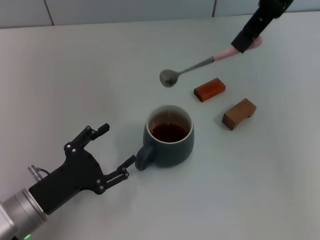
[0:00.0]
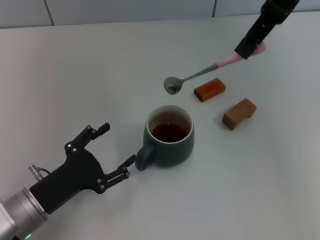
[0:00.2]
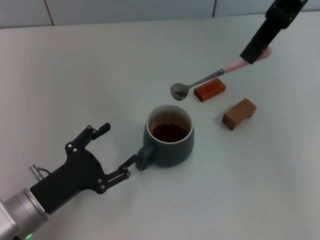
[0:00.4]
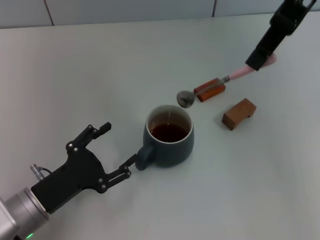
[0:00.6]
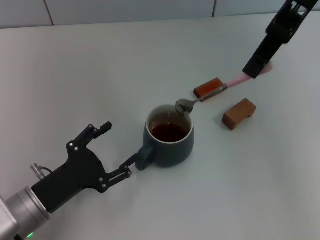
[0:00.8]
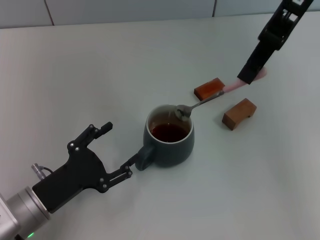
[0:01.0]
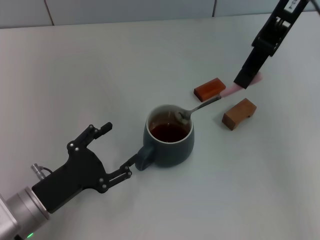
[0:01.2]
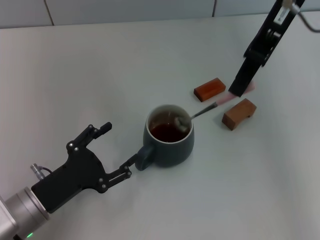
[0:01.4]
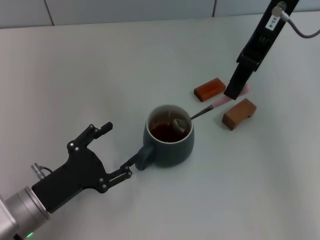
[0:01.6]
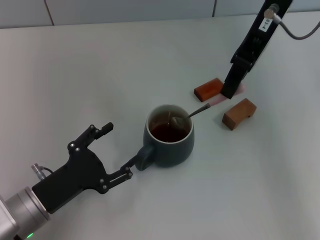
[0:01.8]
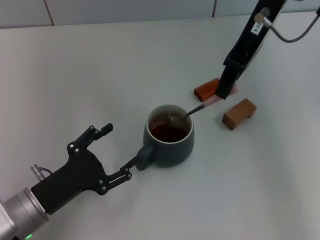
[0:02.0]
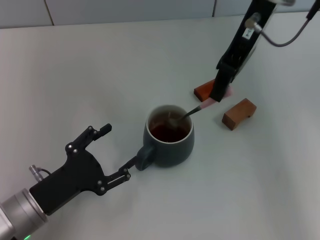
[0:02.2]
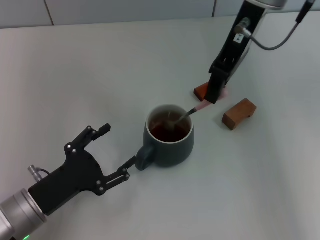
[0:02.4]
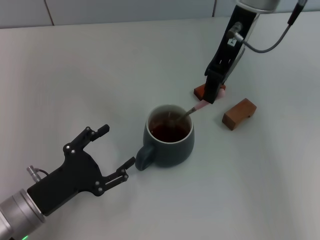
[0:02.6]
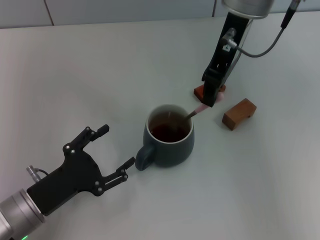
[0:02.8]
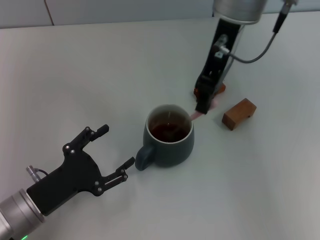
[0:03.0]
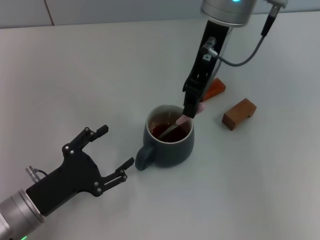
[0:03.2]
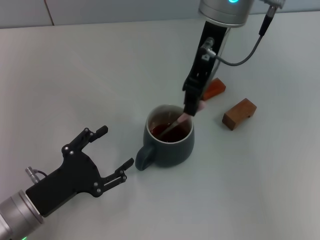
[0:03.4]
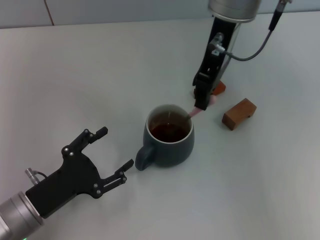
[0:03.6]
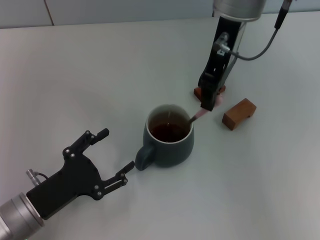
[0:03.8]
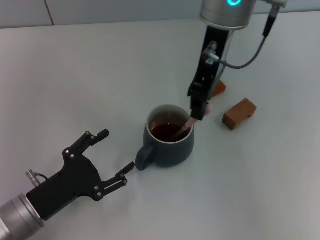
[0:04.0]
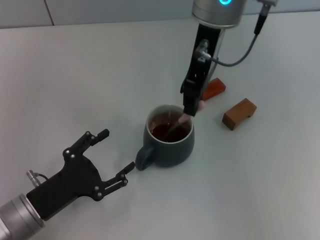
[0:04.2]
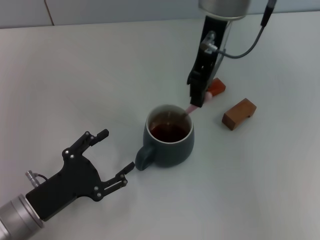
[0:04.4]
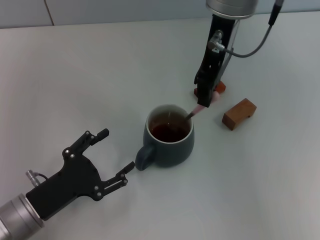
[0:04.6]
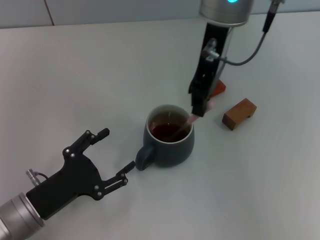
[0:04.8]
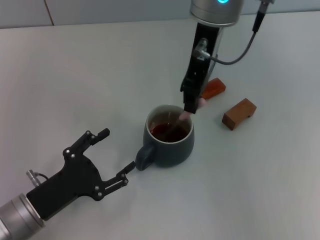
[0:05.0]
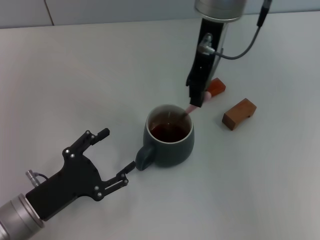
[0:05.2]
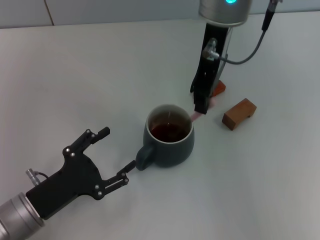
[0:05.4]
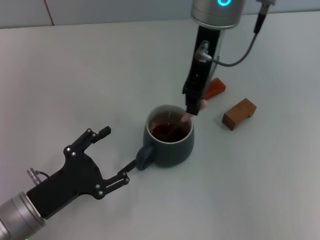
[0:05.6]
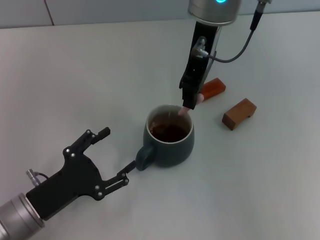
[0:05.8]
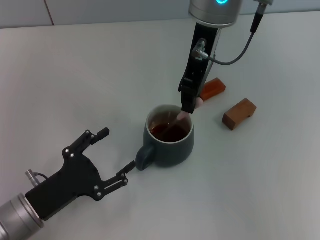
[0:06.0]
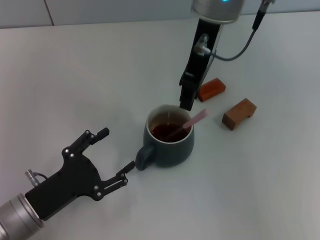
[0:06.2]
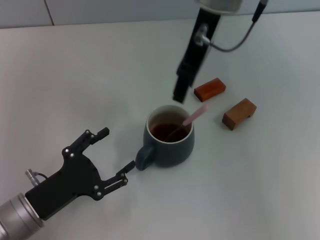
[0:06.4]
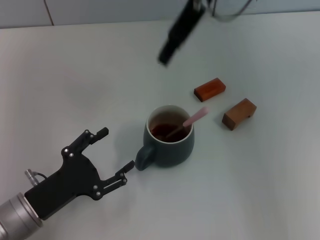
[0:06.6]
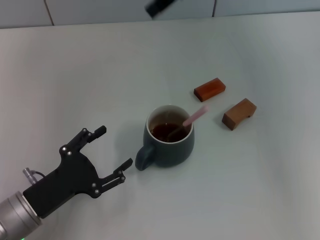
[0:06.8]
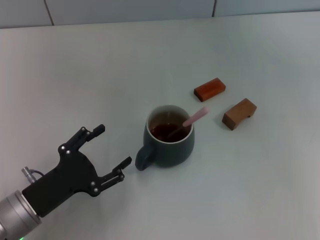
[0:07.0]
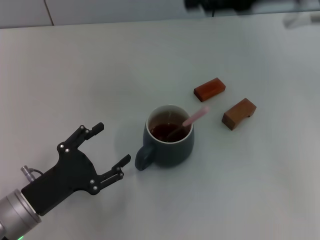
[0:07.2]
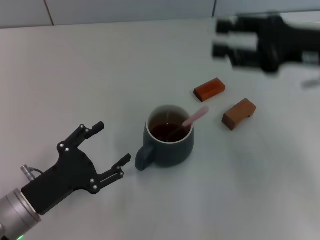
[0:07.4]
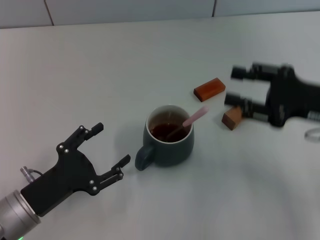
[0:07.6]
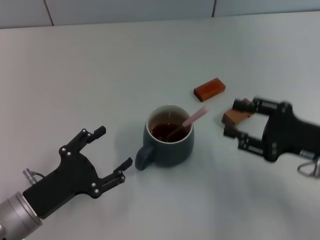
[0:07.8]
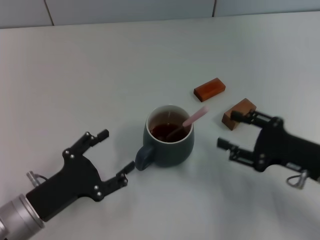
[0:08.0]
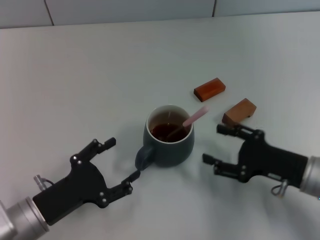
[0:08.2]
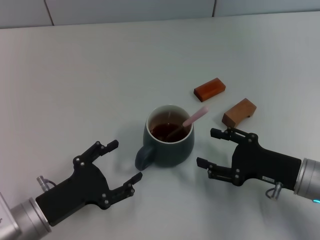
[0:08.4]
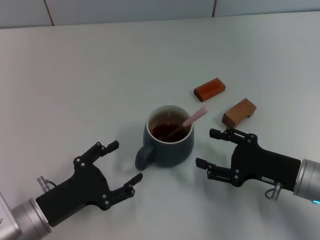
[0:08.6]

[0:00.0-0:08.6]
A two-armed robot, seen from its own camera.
Task of the whole recording: Move the grey cup to the center, lift the pink spoon, stir it three times in the cup, and put the spoon into the cup.
Step, 0:00.0 to 0:06.0: Stir the coffee in the cup with the right gripper.
0:00.0 to 0:01.4: The right gripper goes about 5 cm downward.
0:01.4 to 0:02.8: The right gripper is displaced to the left by about 5 cm.
0:02.8 to 0:05.8: The grippers move only a little.
0:05.8 to 0:07.2: The right gripper travels to the right by roughly 20 cm, and opens.
0:07.2 to 0:08.6: The right gripper is displaced downward and backward by some 25 cm.

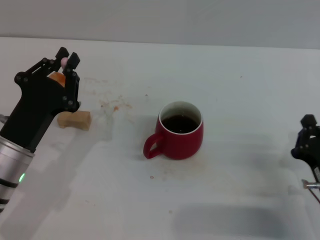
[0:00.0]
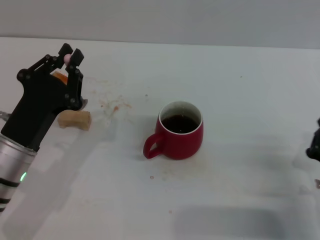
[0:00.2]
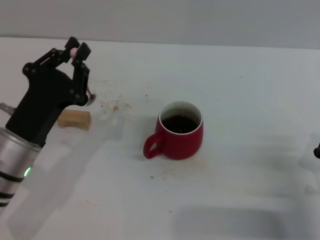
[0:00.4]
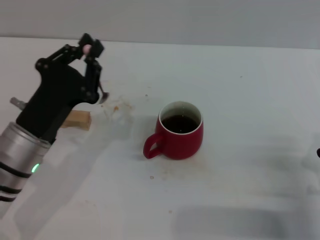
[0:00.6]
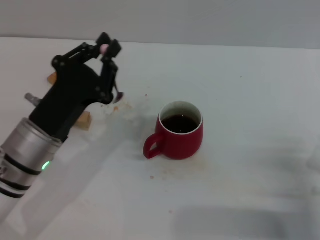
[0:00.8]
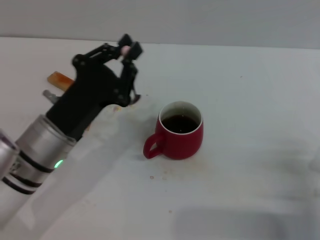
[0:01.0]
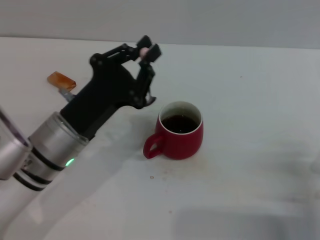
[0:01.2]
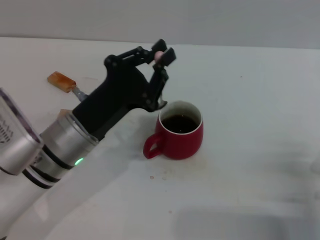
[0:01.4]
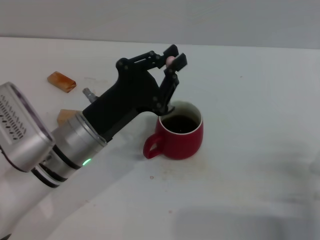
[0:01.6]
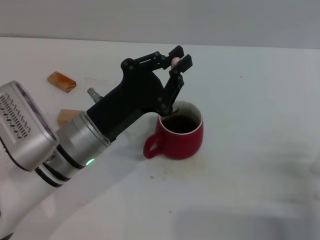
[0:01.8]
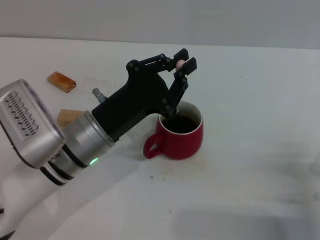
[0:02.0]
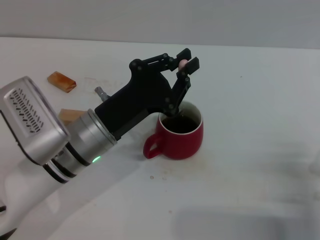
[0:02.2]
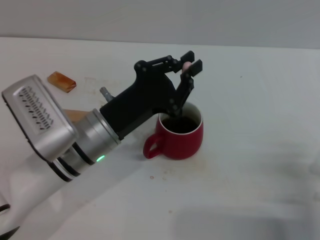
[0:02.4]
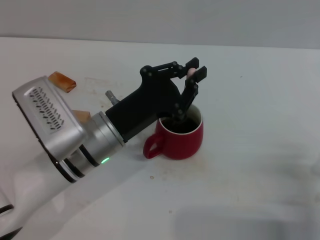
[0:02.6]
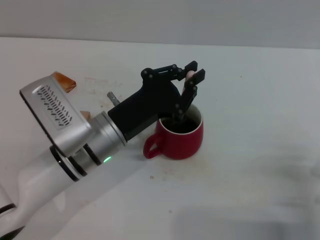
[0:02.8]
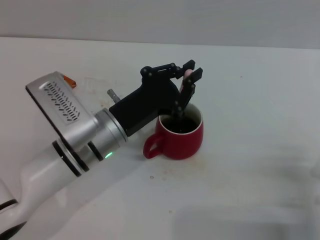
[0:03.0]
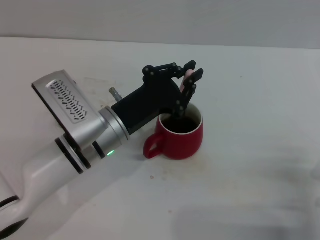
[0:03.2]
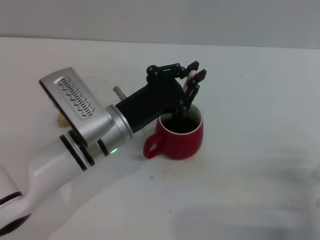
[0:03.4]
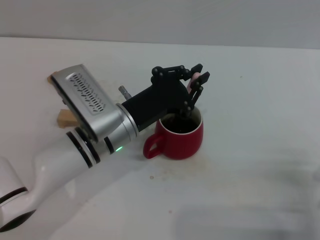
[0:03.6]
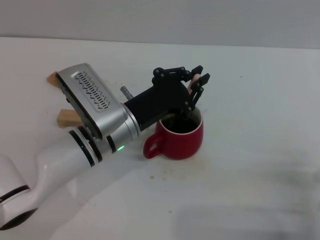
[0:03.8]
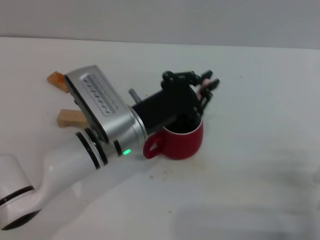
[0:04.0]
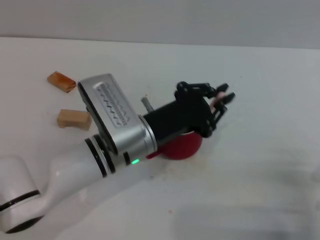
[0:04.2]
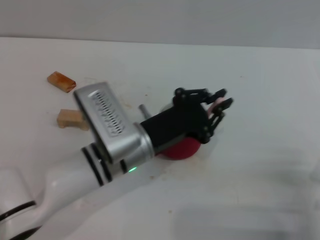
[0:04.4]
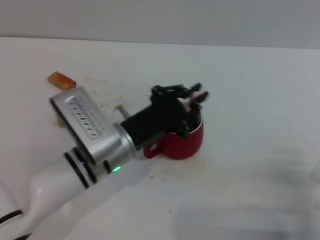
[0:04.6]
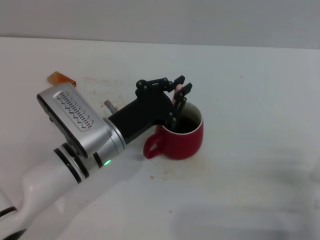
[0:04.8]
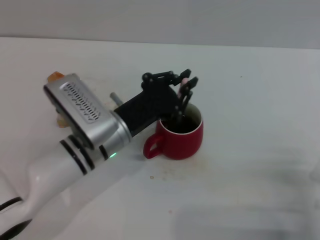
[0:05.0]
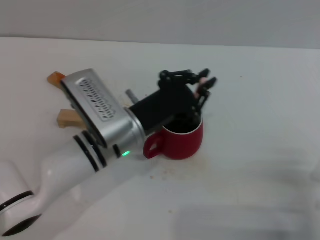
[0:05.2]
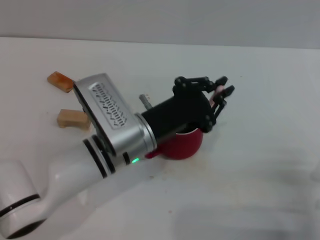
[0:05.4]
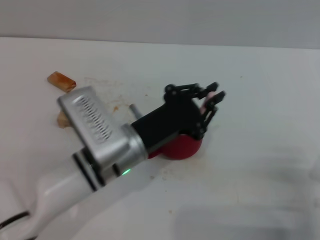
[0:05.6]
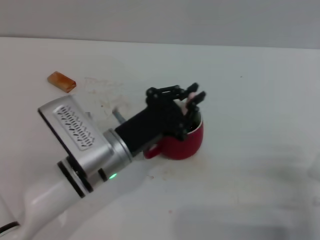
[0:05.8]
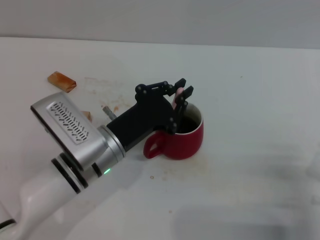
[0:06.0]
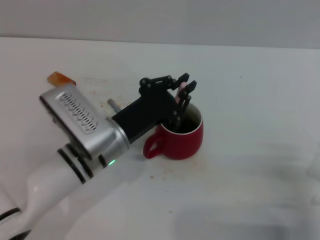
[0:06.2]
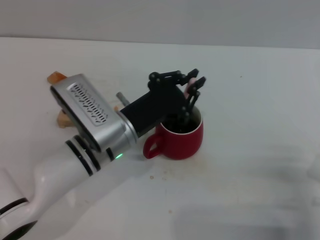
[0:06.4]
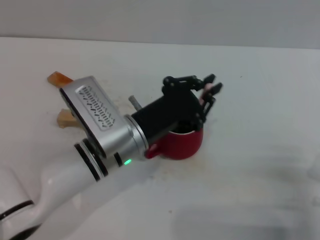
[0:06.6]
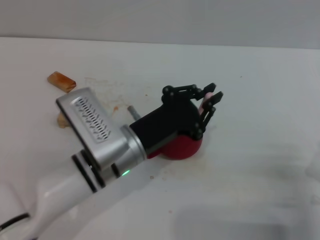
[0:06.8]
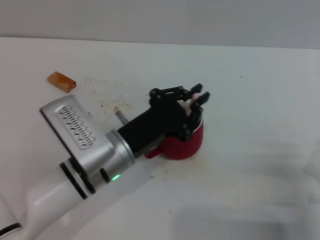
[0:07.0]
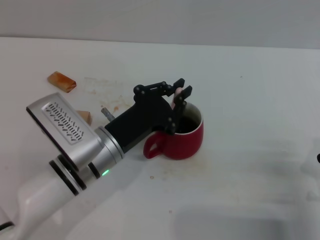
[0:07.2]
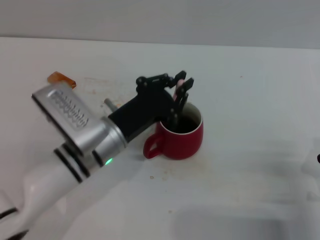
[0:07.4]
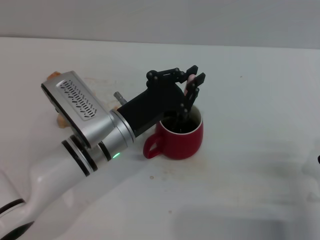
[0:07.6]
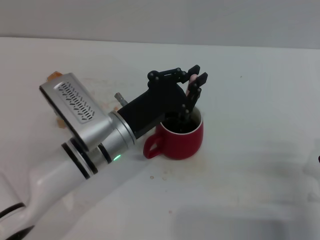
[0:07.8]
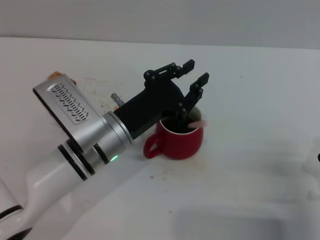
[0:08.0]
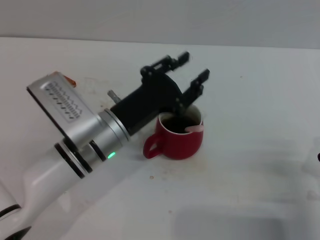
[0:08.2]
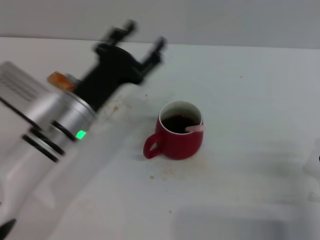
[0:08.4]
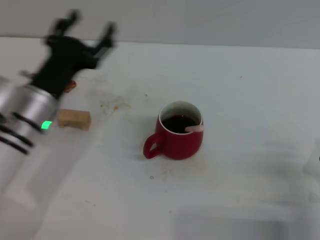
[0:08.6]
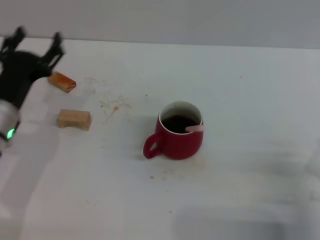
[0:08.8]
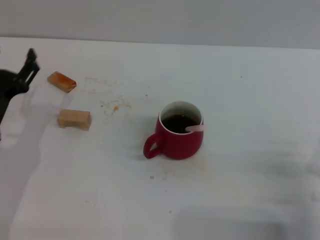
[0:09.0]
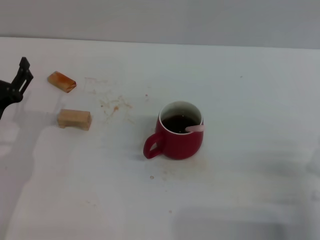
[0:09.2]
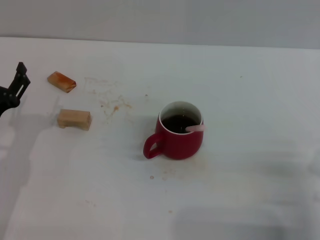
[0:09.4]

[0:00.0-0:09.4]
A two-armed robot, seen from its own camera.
Task of the whole recording: Move the red cup to the center, lift the pink spoon, stir it three times in the cup, and put the spoon into the cup.
Step, 0:00.0 to 0:08.0: Stir the coffee with left gripper.
0:00.0 to 0:01.6: The left gripper goes some 10 cm to the right.
0:01.6 to 0:03.2: The grippers move only a little.
0:03.2 to 0:07.8: The grippers make only small movements.
0:07.8 to 0:09.4: The left gripper moves to the left, roughly 20 cm, and opens.

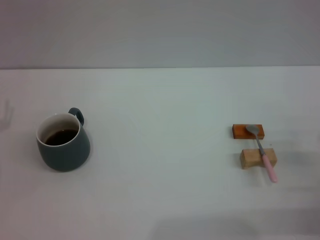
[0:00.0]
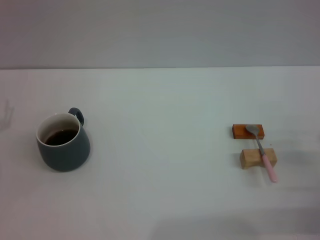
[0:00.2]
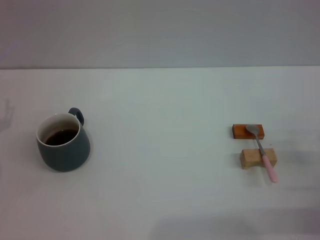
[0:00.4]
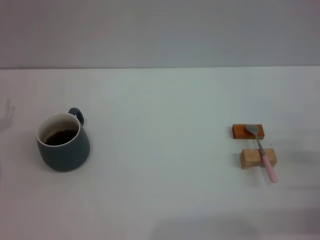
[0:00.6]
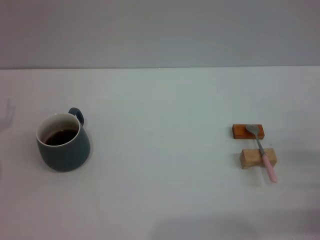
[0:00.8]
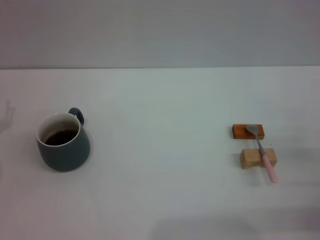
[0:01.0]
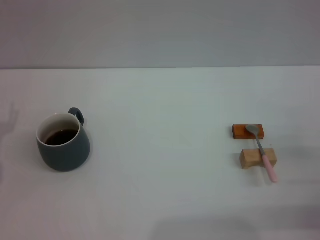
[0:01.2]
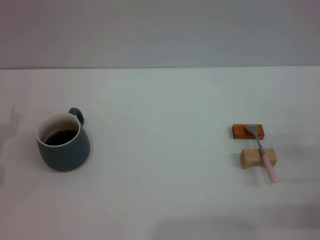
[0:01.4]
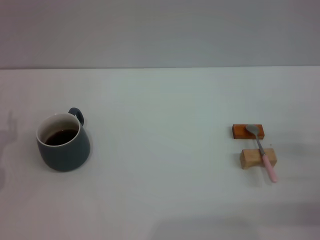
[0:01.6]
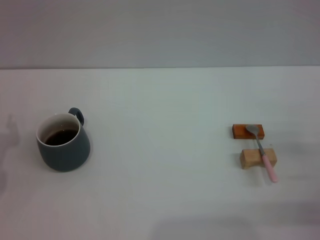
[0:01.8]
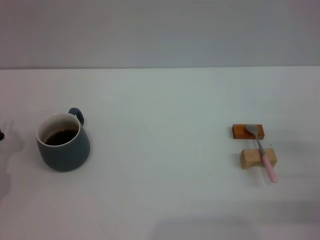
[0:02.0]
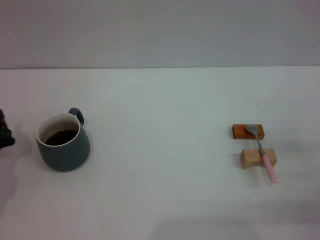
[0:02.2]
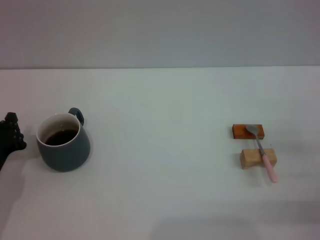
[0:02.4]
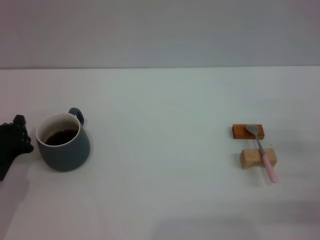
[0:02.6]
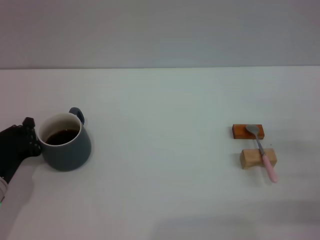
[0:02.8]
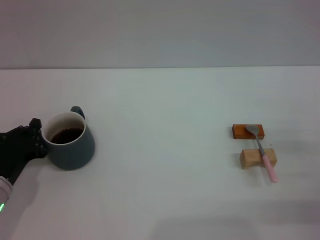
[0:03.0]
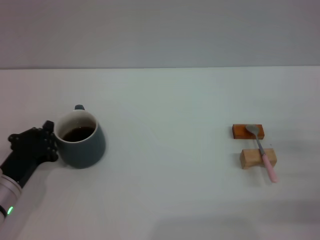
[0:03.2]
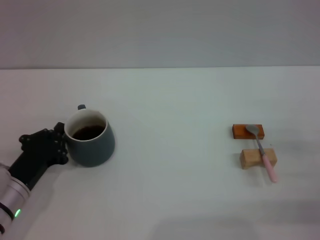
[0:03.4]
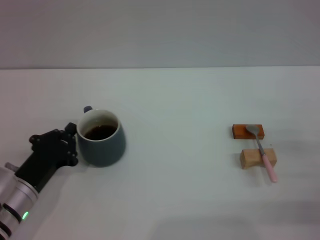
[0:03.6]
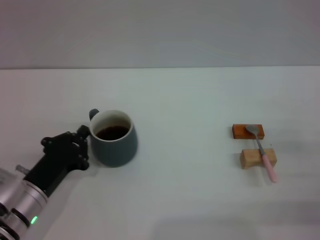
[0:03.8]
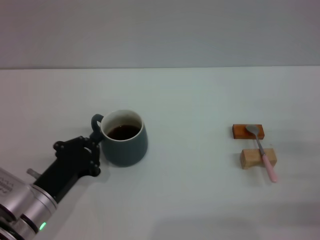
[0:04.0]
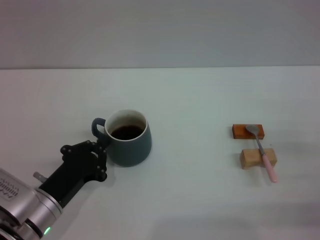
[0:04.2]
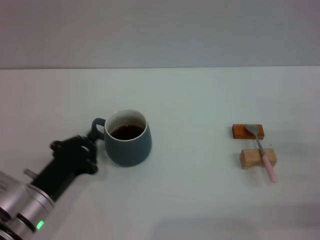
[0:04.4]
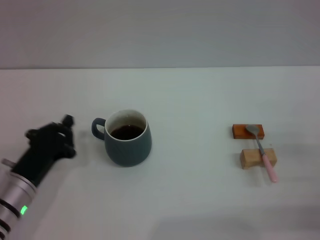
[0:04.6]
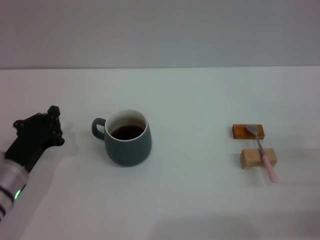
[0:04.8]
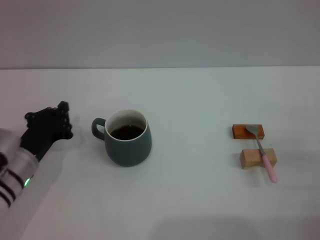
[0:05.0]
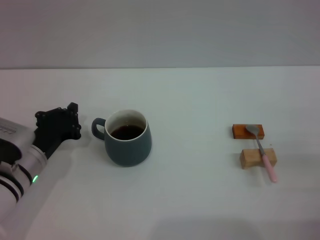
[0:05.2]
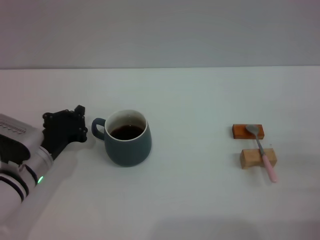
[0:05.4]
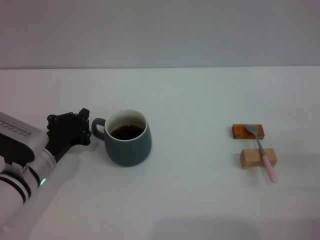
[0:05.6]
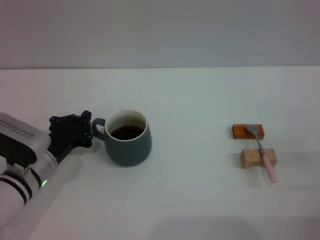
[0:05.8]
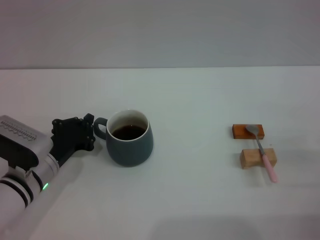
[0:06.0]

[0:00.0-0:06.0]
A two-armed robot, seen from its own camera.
Task of the whole recording: Move the grey cup to the center, lift the pink spoon, stir it three times in the cup, and put the spoon into the cup.
0:01.6 to 0:03.0: The left gripper moves some 5 cm, and closes its fingers.
0:03.0 to 0:04.4: The left gripper travels to the right by approximately 5 cm.
0:04.4 to 0:06.0: The left gripper shifts roughly 5 cm forward.
